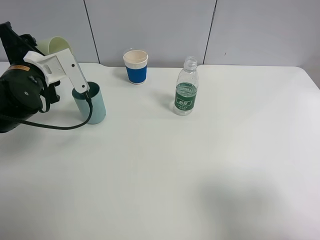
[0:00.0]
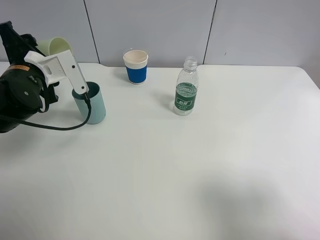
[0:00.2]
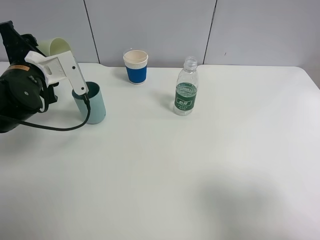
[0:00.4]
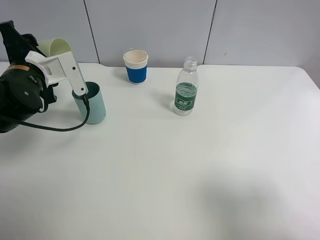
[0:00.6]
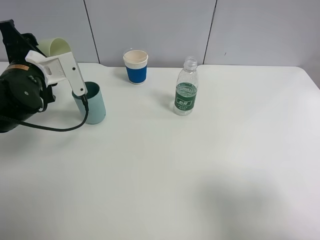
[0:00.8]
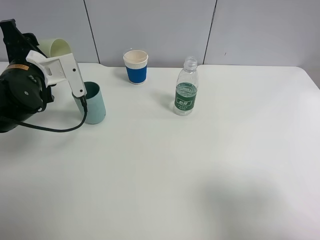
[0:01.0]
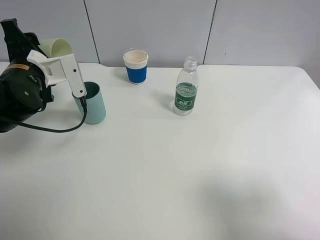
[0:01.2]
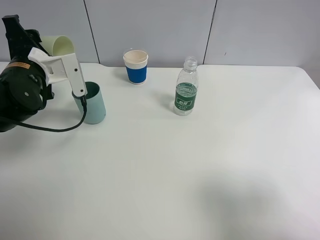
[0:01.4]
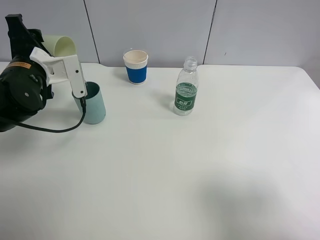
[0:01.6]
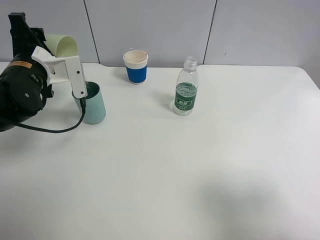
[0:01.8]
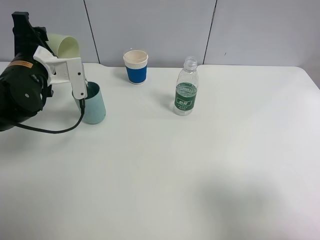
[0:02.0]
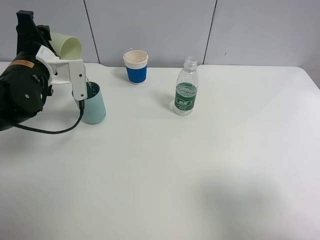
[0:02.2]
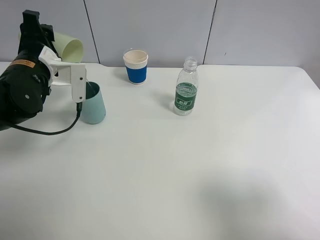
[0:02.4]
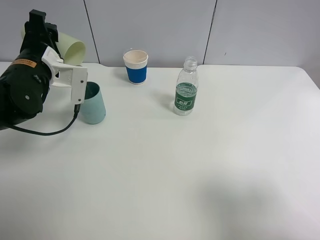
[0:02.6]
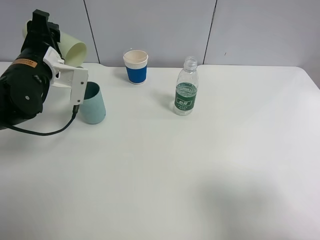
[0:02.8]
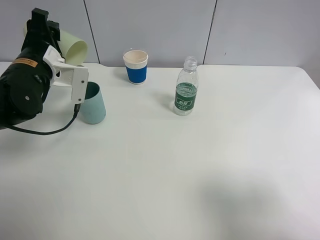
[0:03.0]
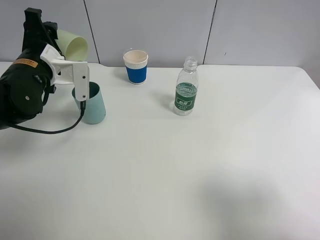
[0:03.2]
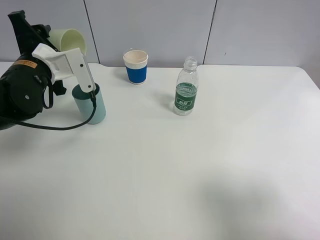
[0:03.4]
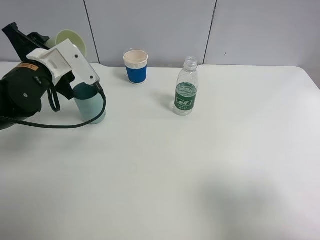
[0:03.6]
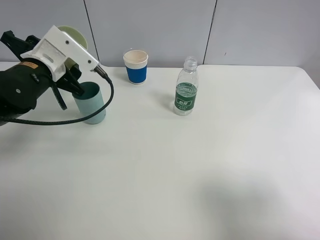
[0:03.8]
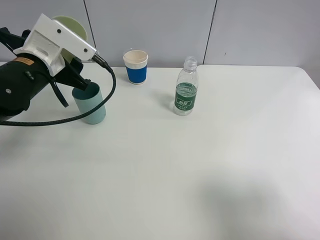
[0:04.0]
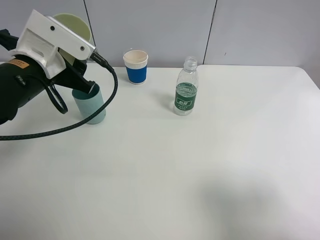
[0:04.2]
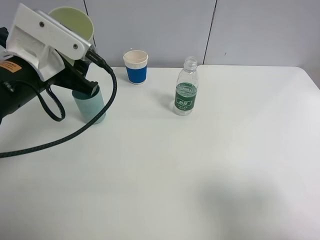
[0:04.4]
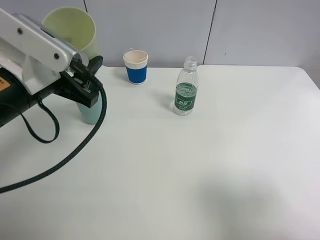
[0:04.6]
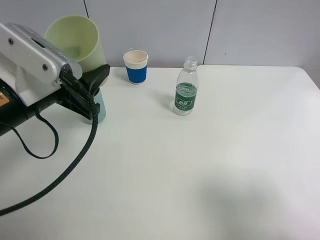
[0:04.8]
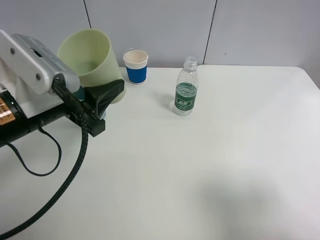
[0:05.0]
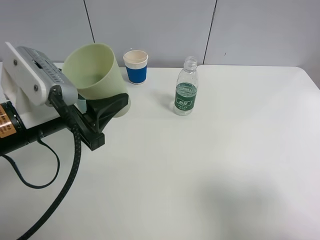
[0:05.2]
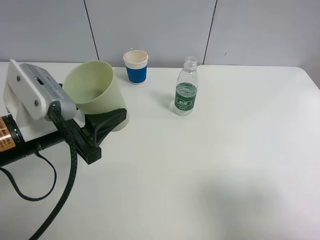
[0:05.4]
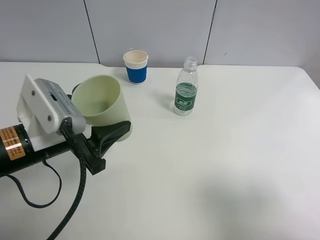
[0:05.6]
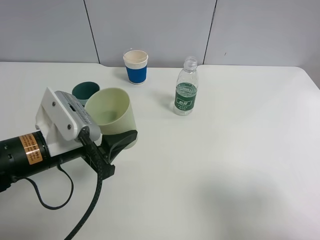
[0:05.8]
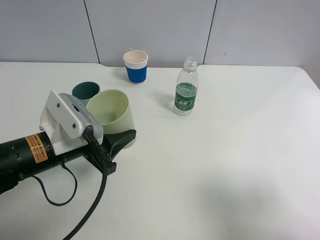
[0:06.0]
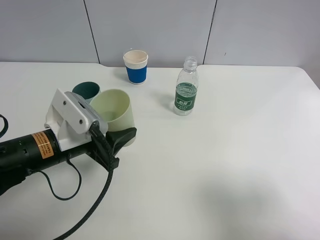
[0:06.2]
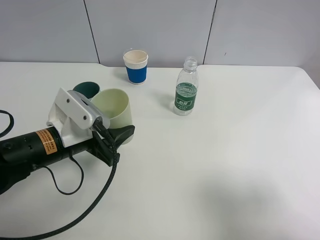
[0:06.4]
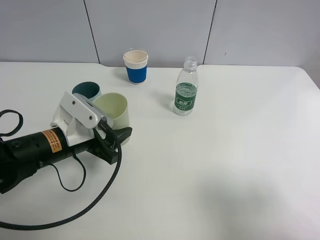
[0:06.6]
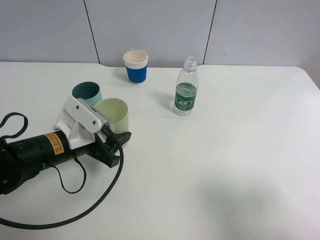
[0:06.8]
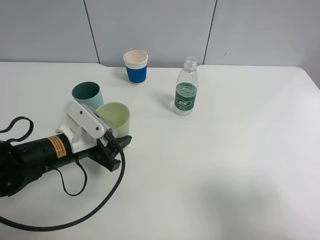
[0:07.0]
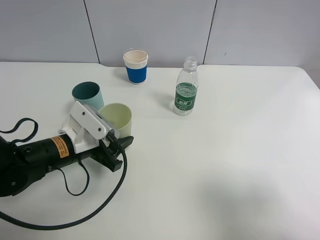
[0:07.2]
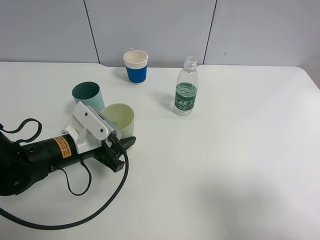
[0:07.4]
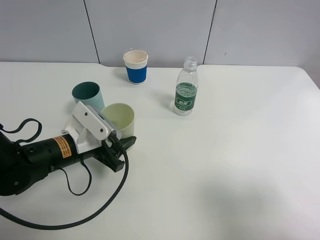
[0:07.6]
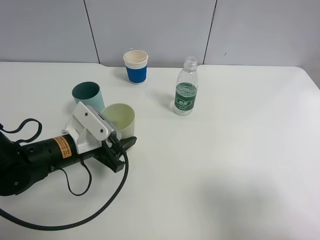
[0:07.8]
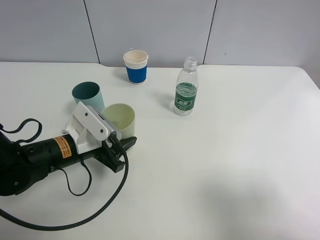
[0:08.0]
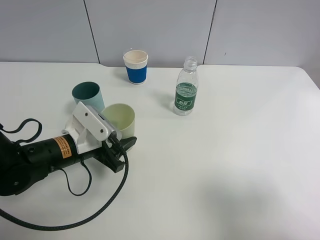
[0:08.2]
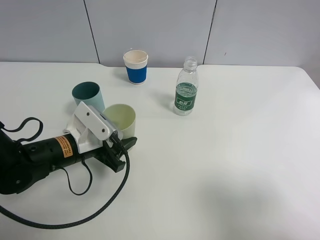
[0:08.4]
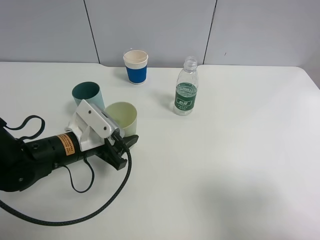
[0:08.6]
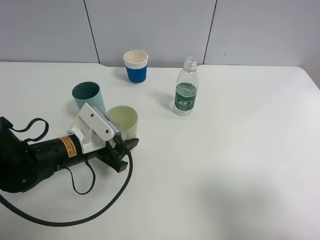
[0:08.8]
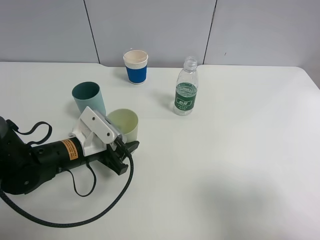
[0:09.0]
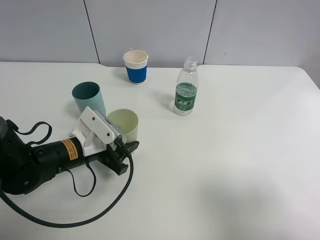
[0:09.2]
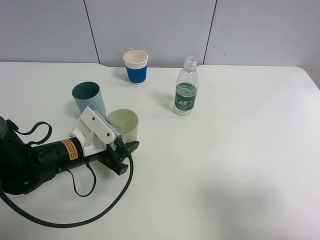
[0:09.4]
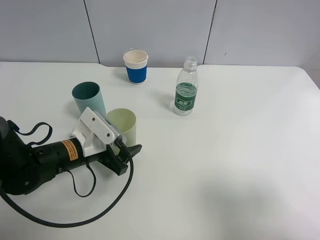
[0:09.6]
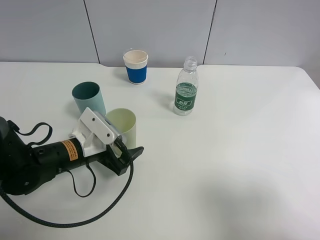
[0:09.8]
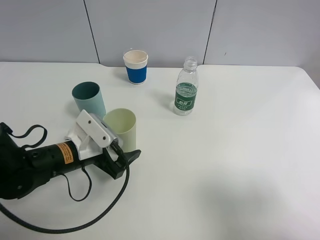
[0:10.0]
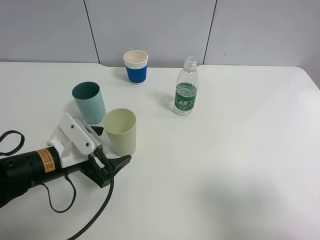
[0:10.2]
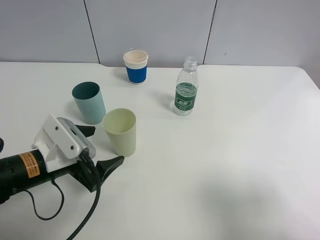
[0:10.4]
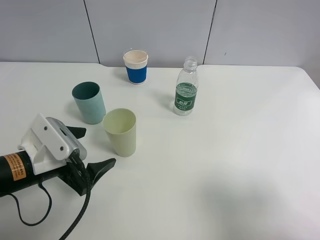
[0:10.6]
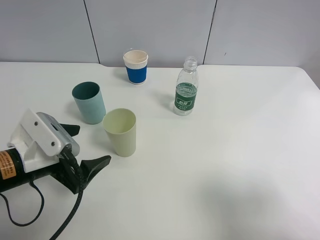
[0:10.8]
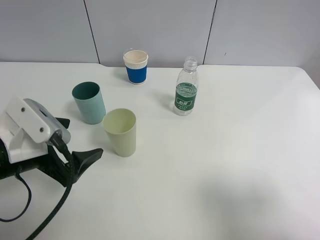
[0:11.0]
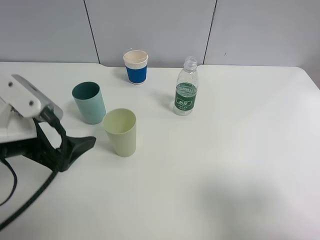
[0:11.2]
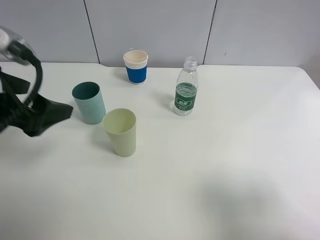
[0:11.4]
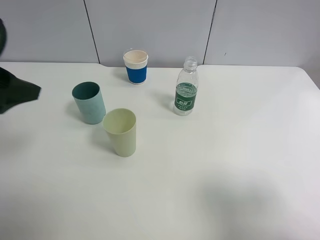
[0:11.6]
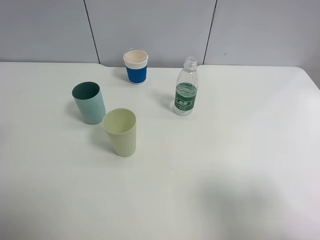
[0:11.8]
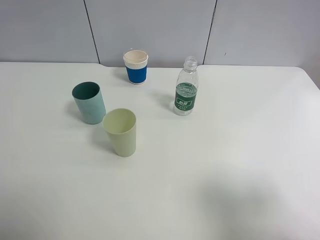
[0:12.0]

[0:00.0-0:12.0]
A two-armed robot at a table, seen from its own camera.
Task of the whole recording: use a clamp to hold the bottle of the drink, pour the beverage into a random cup, then clamp the cup containing the drink and pour the drink into another random cup.
Step, 0:00.0 to 0:03.6: Pour the water into the blue plastic cup with left gripper.
Step, 0:03.8 to 0:10.0: Place the green plastic cup on the table with left gripper.
0:00.0 to 0:01.6: The grippers move only a little.
0:03.0 to 0:04.4: The left gripper travels backward by approximately 5 cm.
0:04.4 to 0:06.0: The left gripper is displaced downward and backward by roughly 10 cm.
0:06.0 to 0:07.6: The left gripper shifts some 5 cm downward.
0:07.6 to 0:09.0: The grippers make only small movements.
0:09.0 to 0:10.4: The left gripper heads backward, covering about 5 cm, and opens.
0:10.4 to 0:12.0: The left gripper shifts some 25 cm upward and to the left.

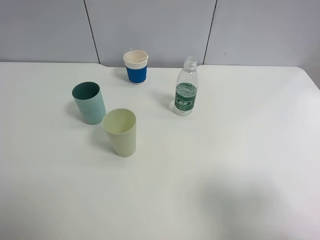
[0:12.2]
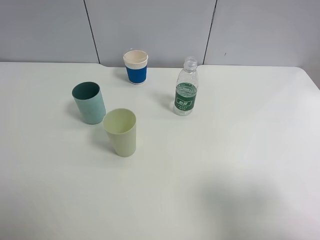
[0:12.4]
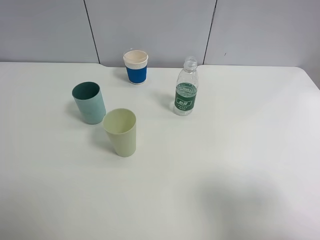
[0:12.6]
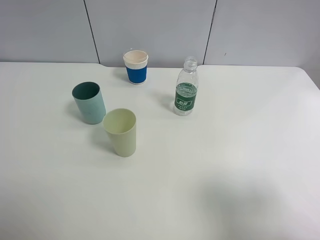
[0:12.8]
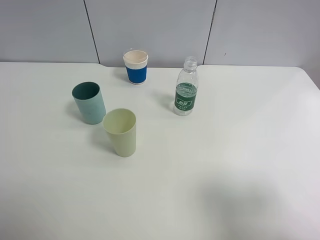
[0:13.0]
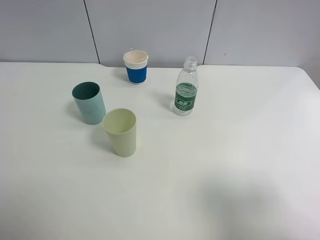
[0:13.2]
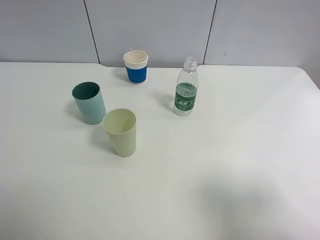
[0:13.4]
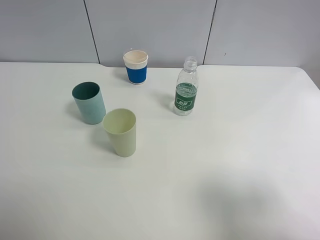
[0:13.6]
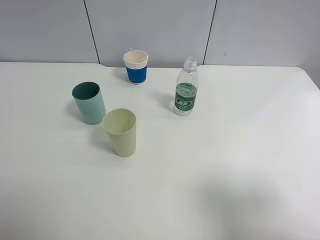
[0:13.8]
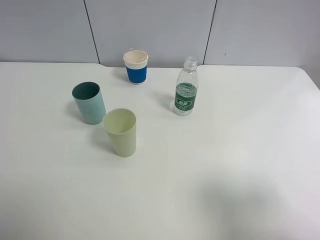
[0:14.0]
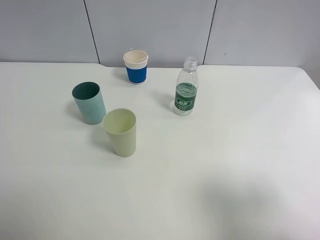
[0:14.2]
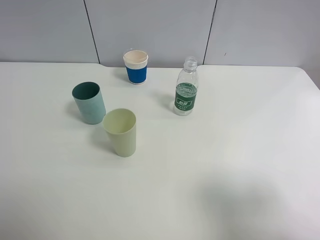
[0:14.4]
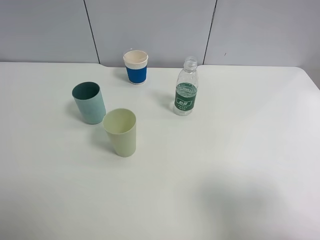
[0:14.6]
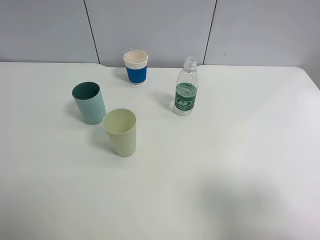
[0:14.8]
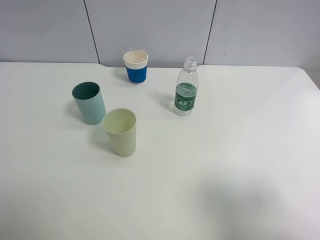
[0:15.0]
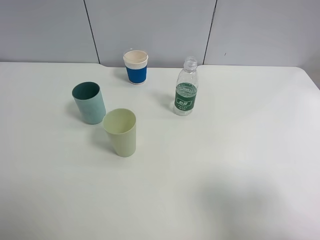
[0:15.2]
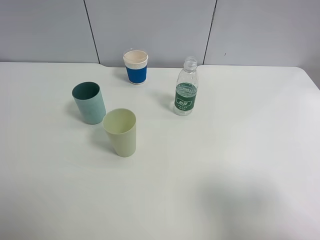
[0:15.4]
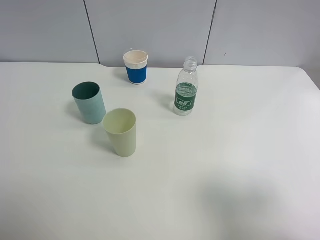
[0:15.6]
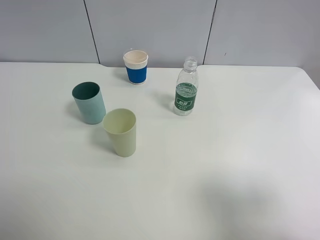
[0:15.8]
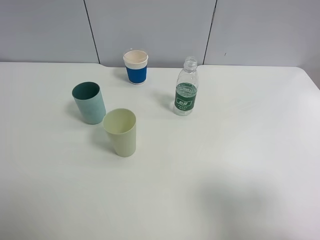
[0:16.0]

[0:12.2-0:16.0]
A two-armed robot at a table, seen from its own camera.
Task of the whole recording: use a clamp to hold the bottle of the drink, pour the beverage into a random cup, then clamp the cup containing the drink and pour the drink into another random cup.
0:14.8 to 0:16.0: Both grippers stay about where they are.
